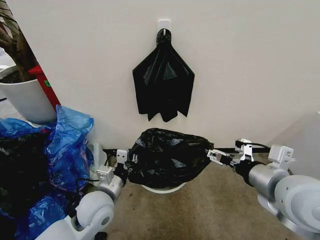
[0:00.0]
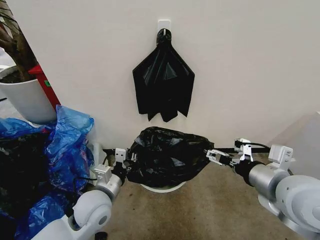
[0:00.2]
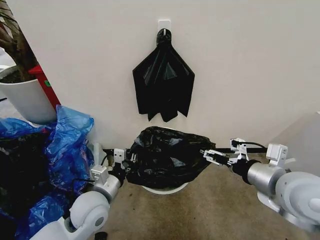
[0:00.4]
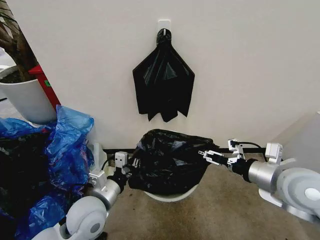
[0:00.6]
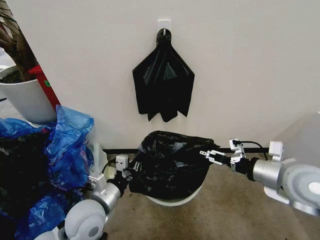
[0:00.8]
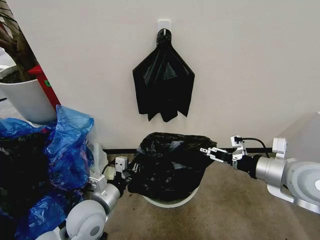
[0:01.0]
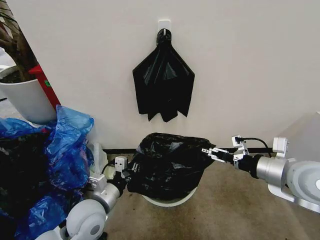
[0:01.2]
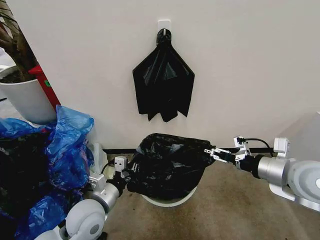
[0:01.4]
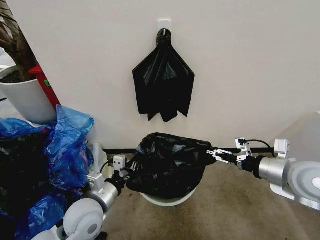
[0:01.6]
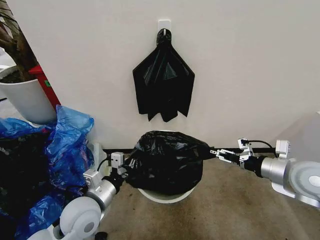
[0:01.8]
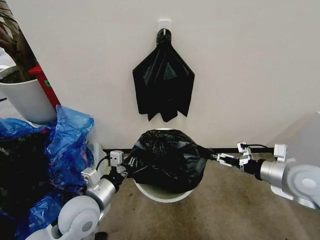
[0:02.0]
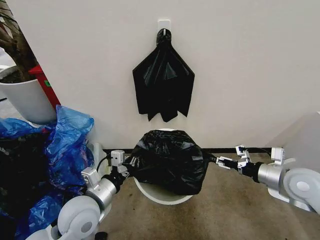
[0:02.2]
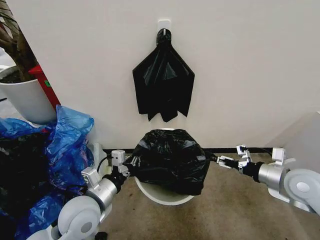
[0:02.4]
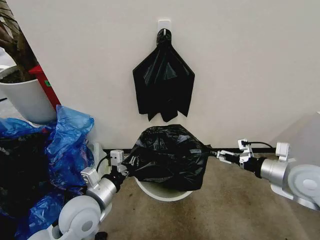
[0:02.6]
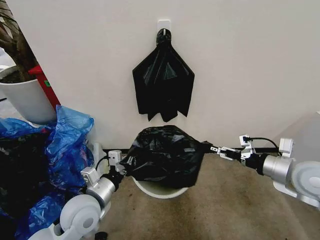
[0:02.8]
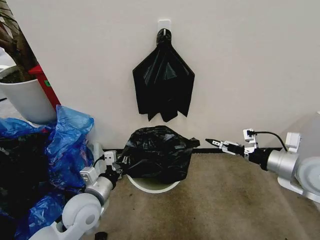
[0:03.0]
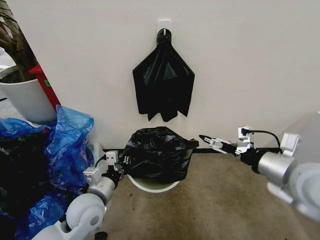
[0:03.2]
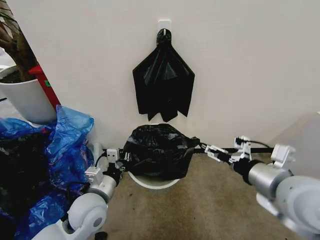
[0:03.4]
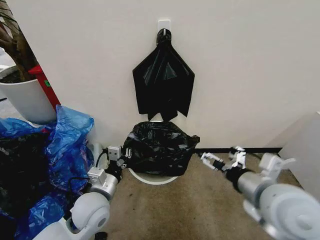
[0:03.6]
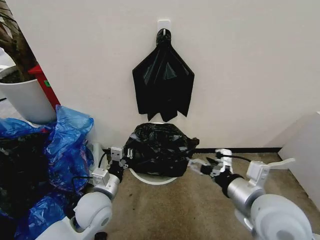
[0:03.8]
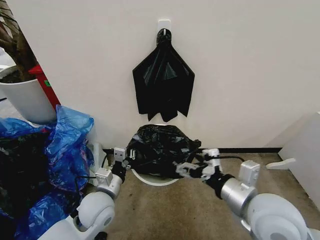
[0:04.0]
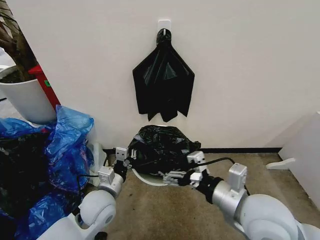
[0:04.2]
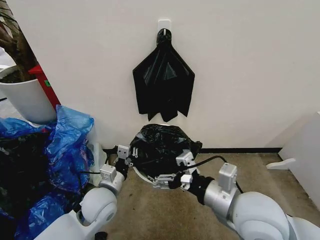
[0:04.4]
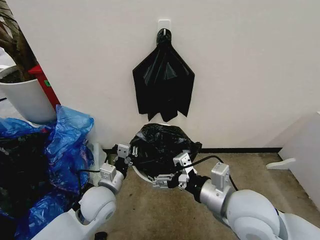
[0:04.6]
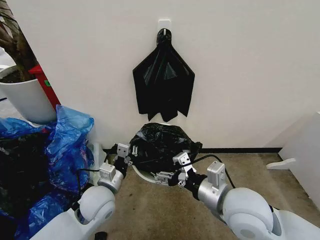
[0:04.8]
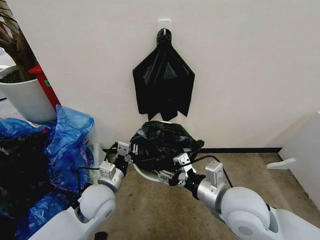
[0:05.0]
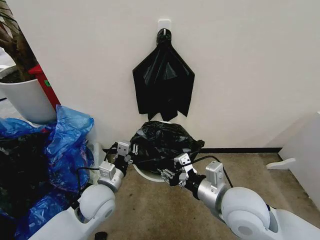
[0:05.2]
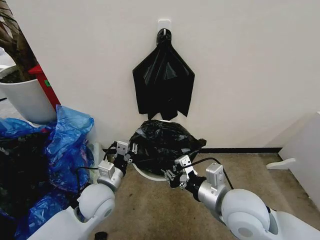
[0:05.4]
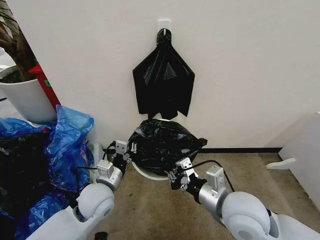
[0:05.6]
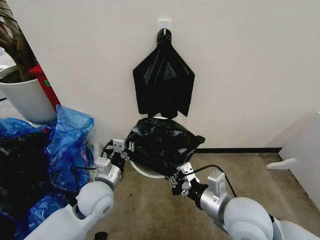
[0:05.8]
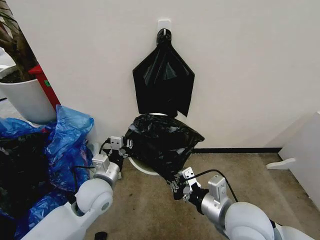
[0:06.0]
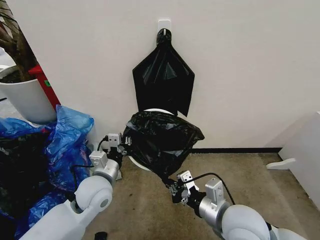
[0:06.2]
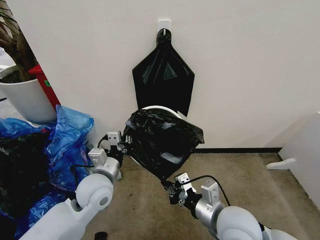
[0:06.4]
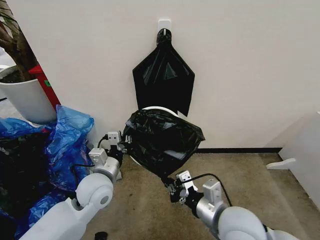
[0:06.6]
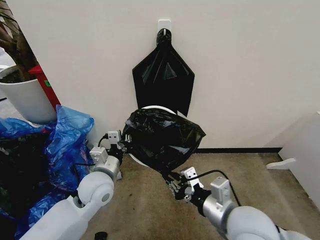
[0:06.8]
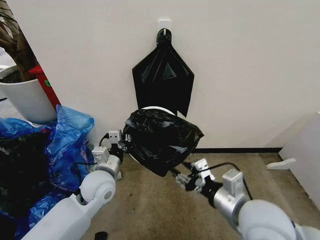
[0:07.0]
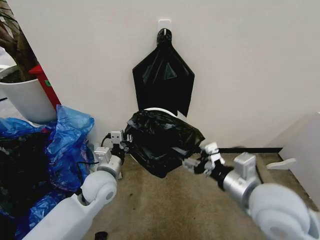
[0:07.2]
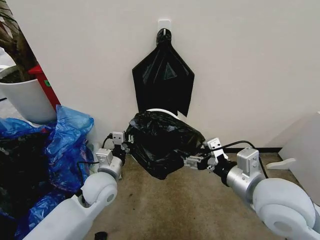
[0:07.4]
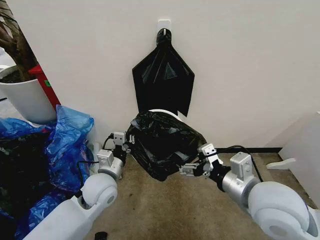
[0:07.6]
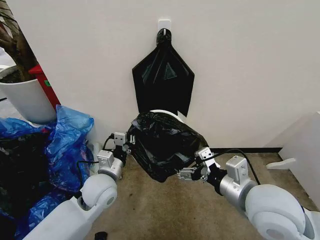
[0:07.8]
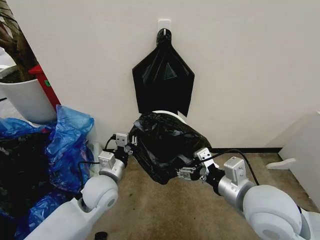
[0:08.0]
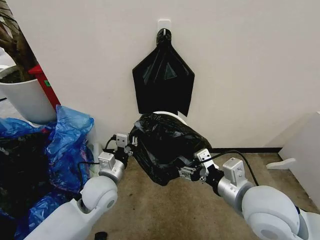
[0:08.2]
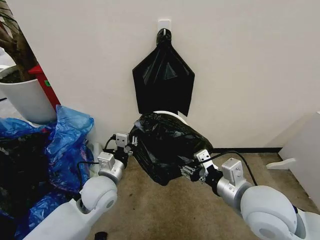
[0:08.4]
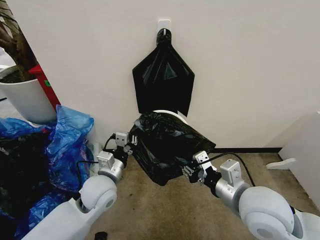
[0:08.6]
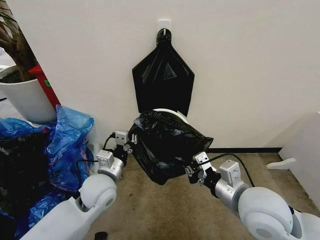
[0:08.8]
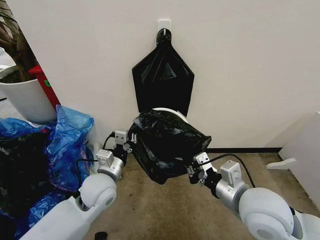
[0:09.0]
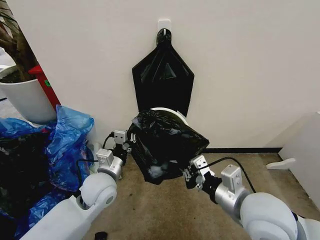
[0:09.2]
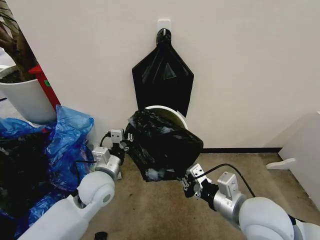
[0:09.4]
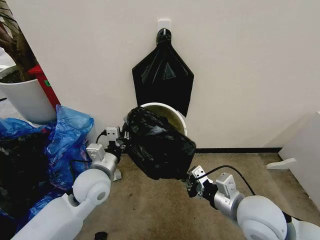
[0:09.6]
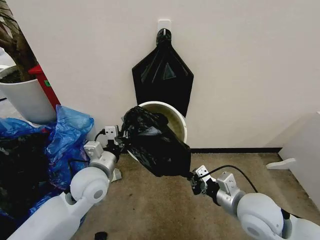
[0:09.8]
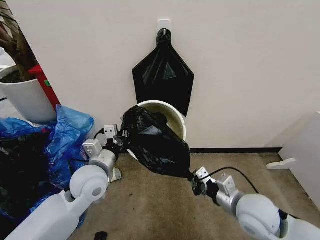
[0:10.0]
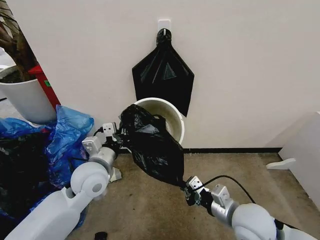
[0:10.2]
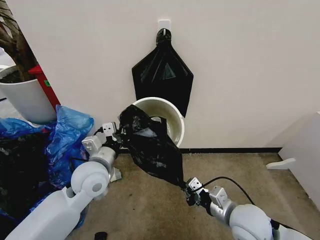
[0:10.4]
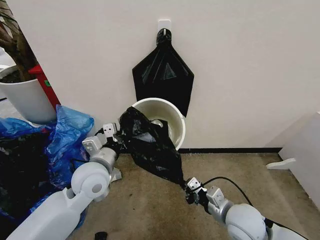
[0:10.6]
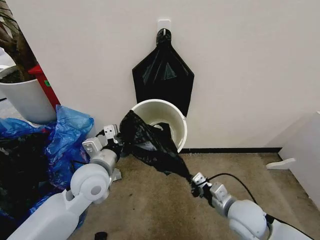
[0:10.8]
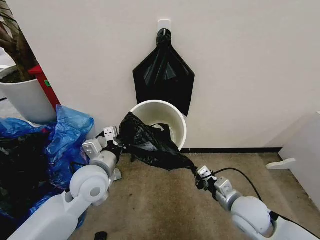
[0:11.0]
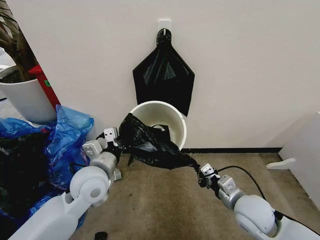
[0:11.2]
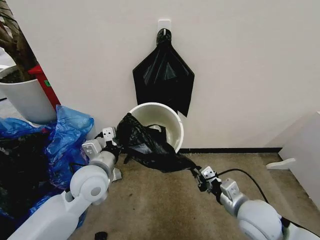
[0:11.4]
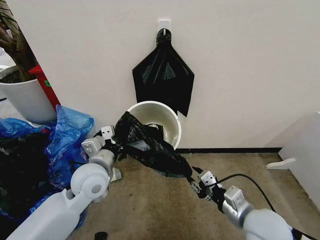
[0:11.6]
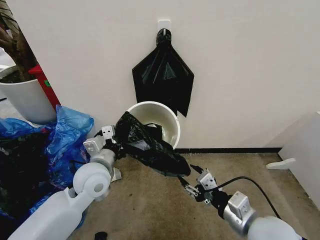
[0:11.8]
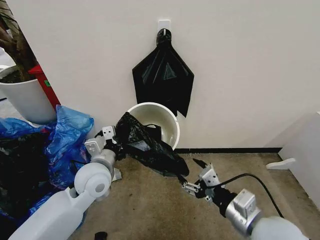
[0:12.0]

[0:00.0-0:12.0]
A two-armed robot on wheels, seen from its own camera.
Task of the whole recording: Place the garbage bag over the trash bin.
0:00.0 to 0:01.6: The right gripper heads to the right, covering roughly 5 cm.
0:03.0 to 0:04.4: The right gripper travels to the left and backward by about 20 cm.
0:04.4 to 0:06.0: The right gripper is displaced downward by about 5 cm, and closes.
0:06.0 to 0:07.6: The right gripper moves upward, approximately 5 cm, and opens up.
0:07.6 to 0:09.0: The right gripper closes its fingers.
0:09.0 to 0:10.4: The right gripper heads downward, covering roughly 10 cm; the left gripper shifts by approximately 5 cm.
0:10.4 to 0:12.0: The right gripper is displaced upward by roughly 10 cm, and opens up.

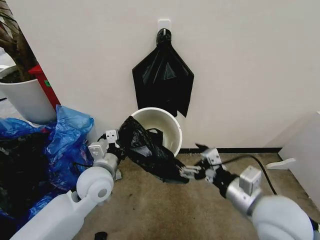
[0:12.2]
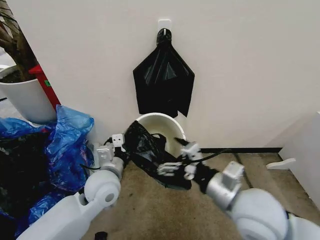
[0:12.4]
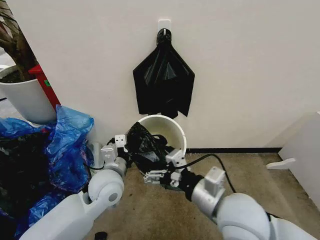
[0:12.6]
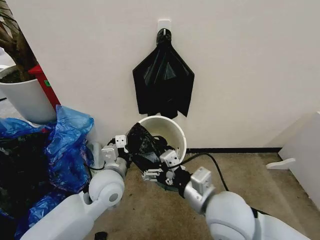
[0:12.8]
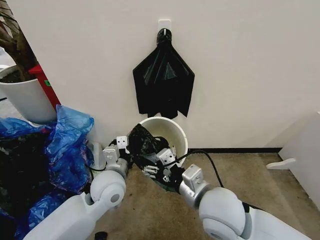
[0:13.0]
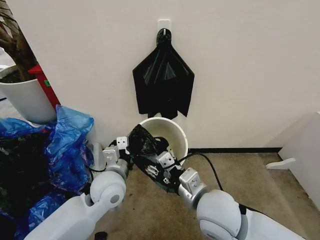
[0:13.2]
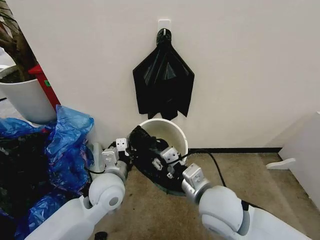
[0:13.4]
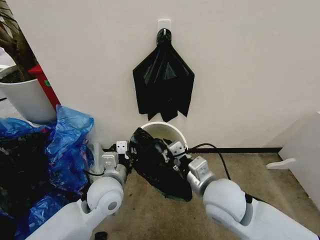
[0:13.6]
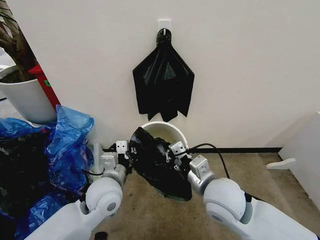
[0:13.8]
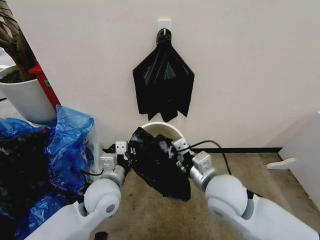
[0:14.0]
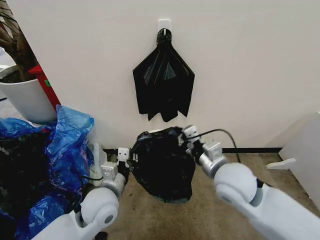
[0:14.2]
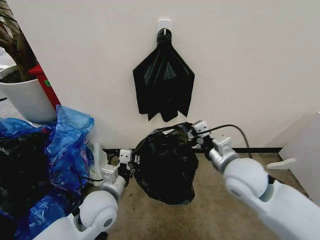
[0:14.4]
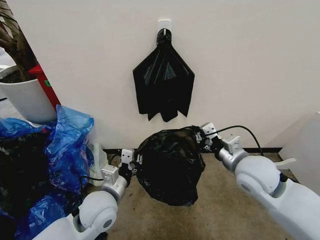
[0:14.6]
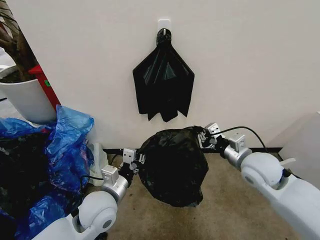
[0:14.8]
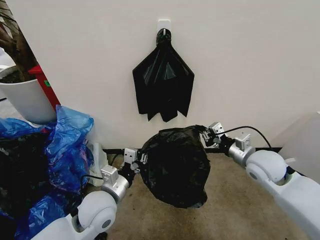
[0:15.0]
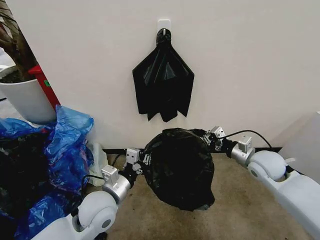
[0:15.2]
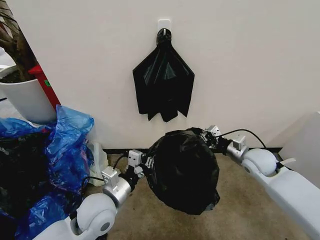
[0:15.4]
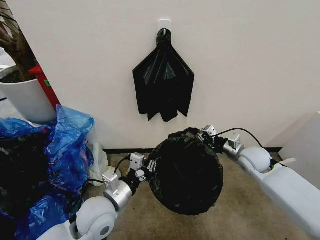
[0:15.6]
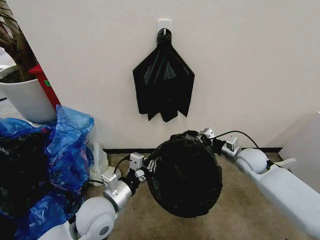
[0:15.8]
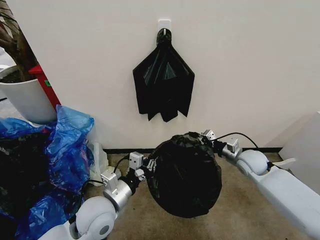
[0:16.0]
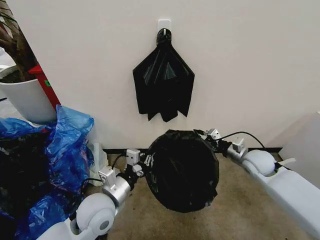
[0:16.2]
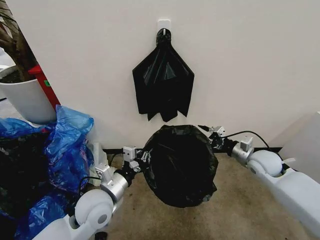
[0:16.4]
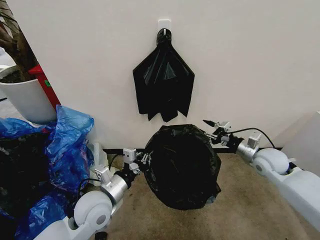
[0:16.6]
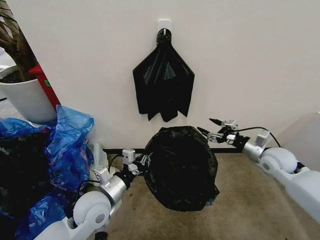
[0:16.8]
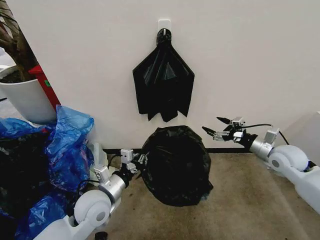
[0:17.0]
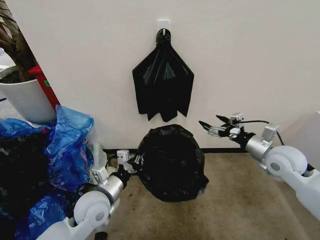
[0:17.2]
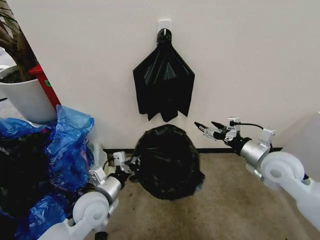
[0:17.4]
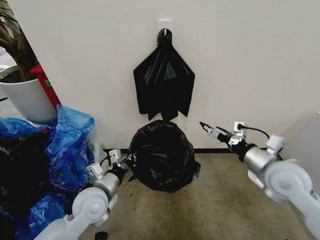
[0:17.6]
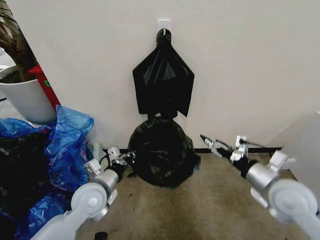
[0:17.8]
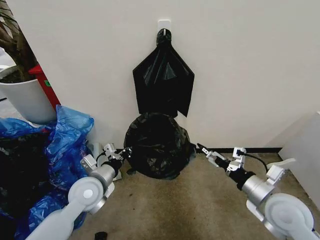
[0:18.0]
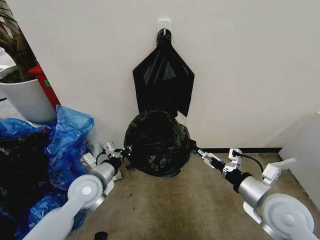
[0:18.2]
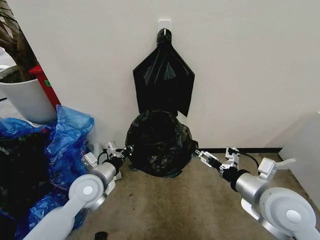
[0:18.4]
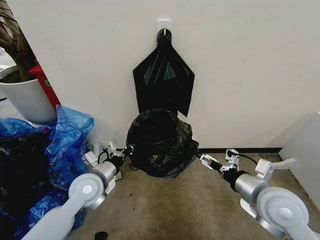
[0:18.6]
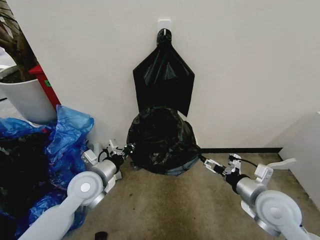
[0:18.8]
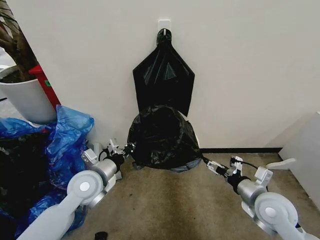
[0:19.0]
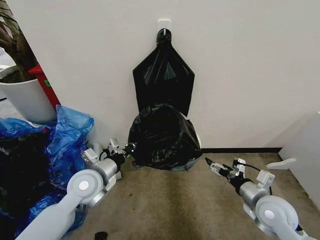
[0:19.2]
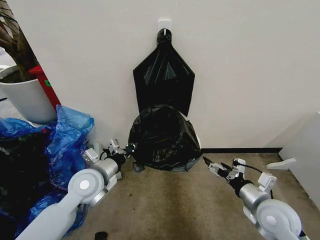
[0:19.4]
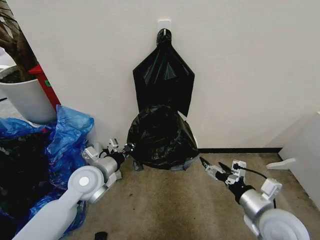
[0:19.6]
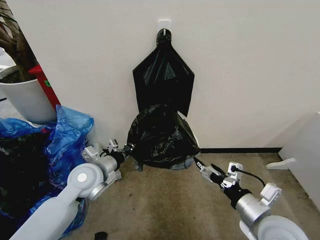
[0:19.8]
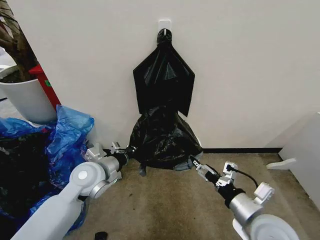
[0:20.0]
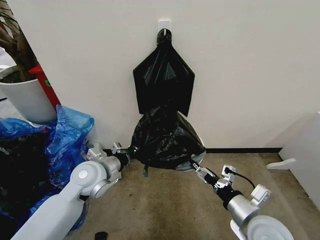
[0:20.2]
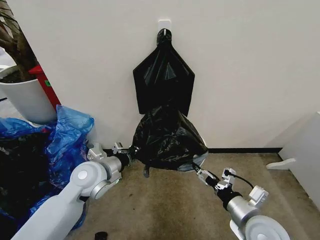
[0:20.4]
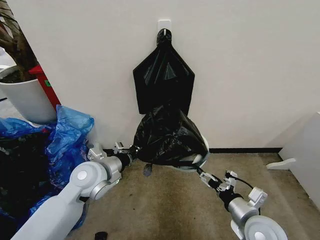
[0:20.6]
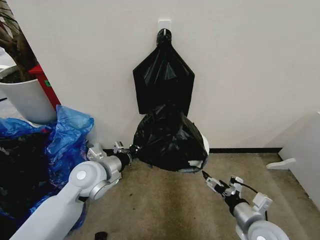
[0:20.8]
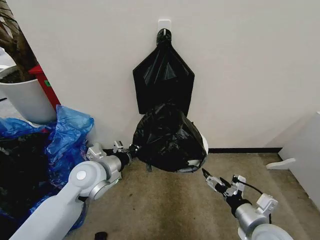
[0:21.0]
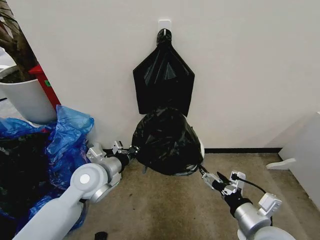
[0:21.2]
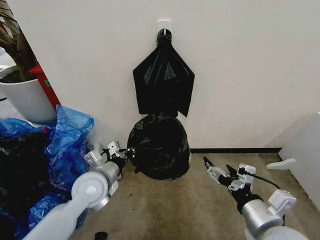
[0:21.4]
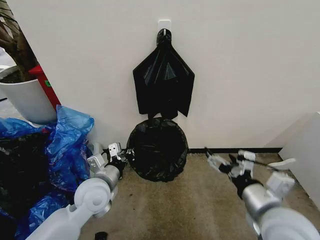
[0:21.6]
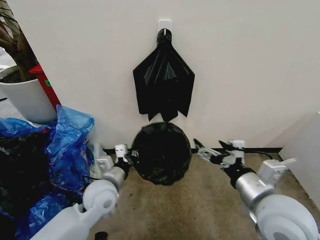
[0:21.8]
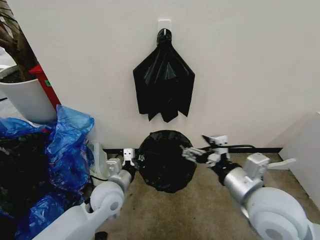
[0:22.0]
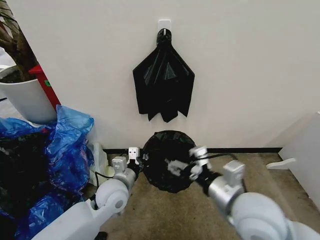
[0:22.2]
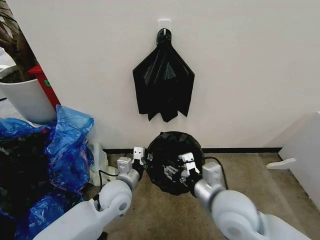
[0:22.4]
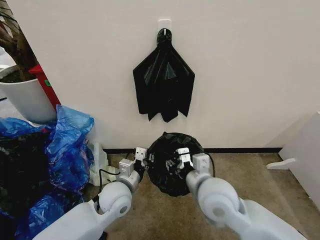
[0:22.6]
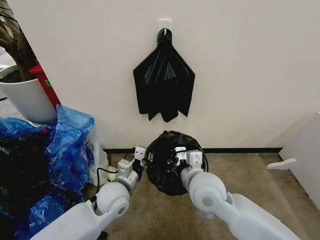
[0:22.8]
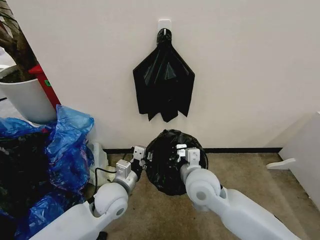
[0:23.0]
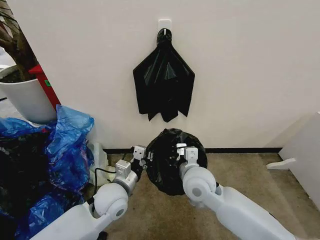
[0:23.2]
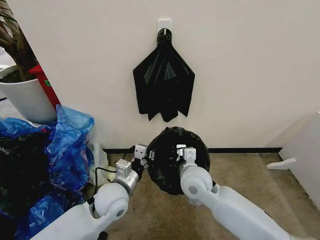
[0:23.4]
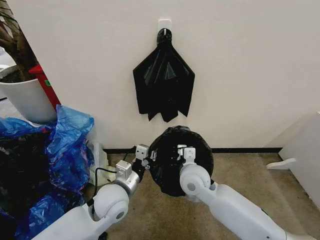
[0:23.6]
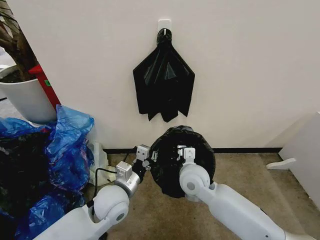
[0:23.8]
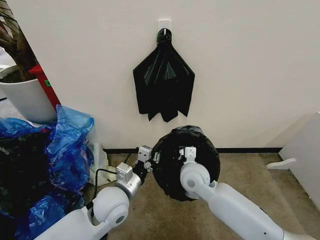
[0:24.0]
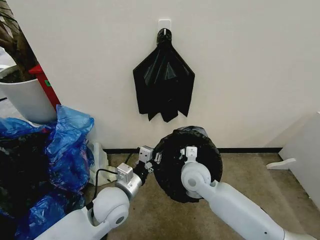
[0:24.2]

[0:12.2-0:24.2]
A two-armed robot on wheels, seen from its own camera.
Task of the whole recording: Place the garbage bag over the trash bin.
0:12.2 to 0:13.8: The right gripper travels to the left and forward by about 10 cm, and closes its fingers.
0:13.8 to 0:15.2: The right gripper is displaced to the right and forward by about 20 cm.
0:15.2 to 0:16.6: The right gripper opens its fingers.
0:16.6 to 0:18.2: The right gripper heads backward and to the left, covering approximately 20 cm, and opens. Meanwhile the left gripper goes roughly 5 cm forward.
0:18.2 to 0:19.8: The right gripper moves approximately 10 cm downward and comes back.
0:19.8 to 0:21.2: The right gripper goes downward and returns, approximately 10 cm each way.
0:21.2 to 0:22.6: The right gripper travels to the left and forward by roughly 15 cm, and closes. Meanwhile the left gripper heads downward and to the right, covering some 10 cm.
0:22.6 to 0:24.2: The right gripper goes approximately 10 cm forward and downward.
